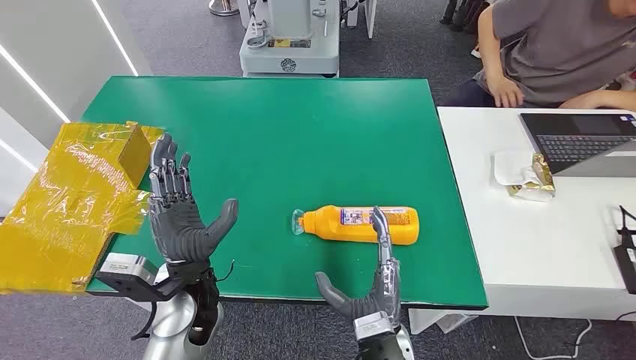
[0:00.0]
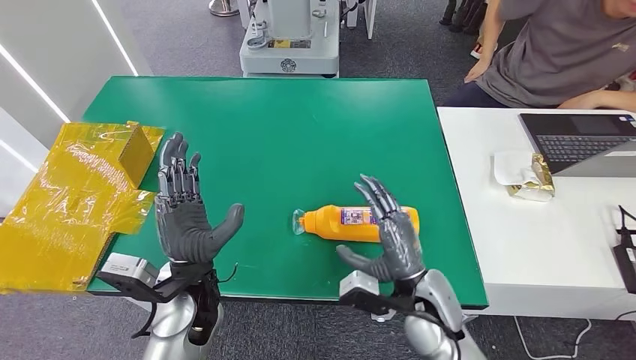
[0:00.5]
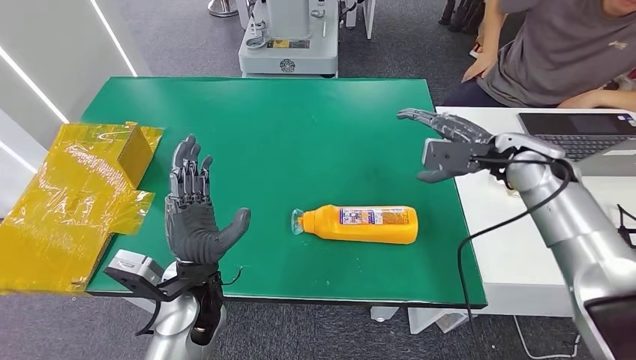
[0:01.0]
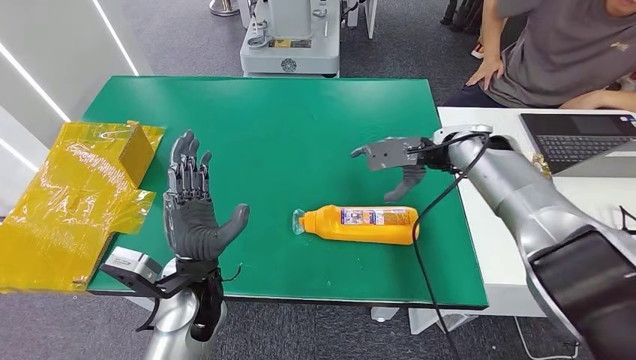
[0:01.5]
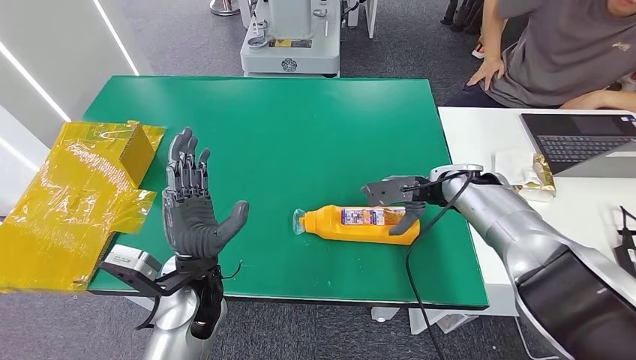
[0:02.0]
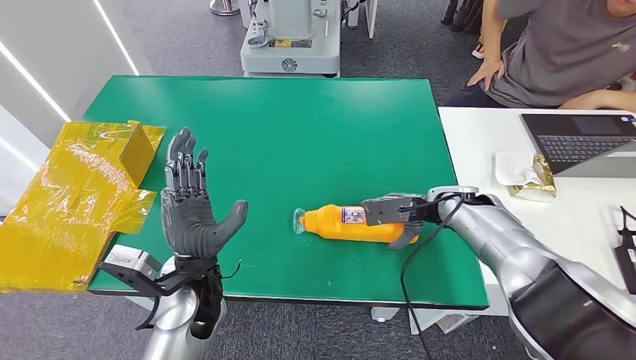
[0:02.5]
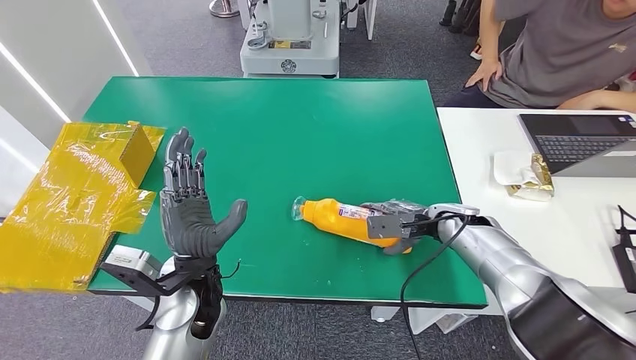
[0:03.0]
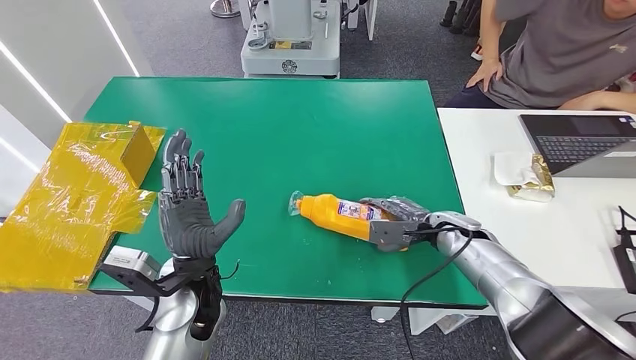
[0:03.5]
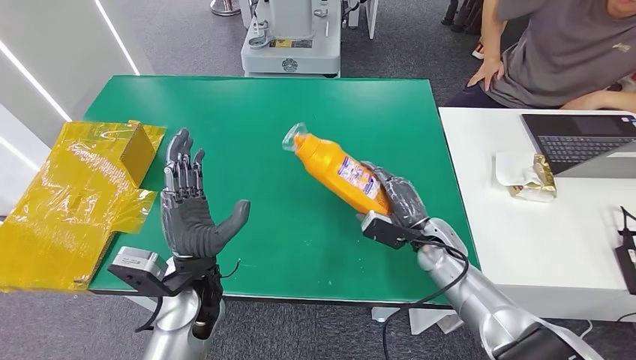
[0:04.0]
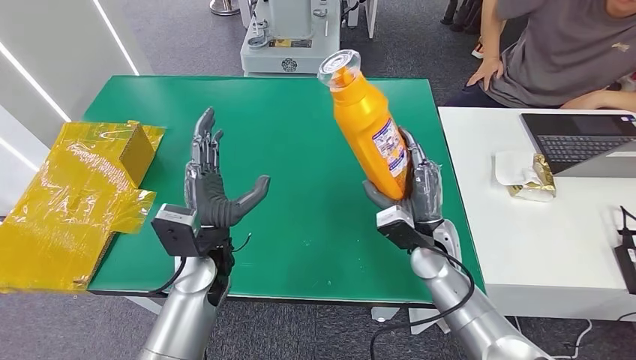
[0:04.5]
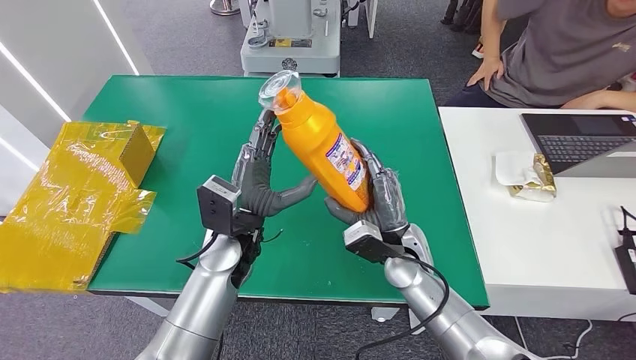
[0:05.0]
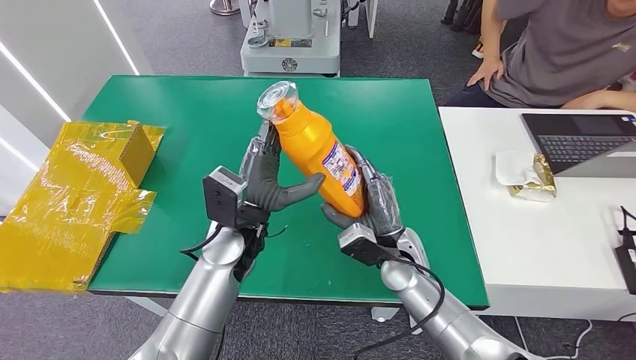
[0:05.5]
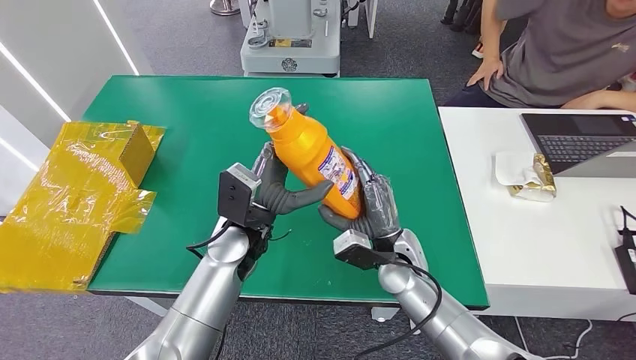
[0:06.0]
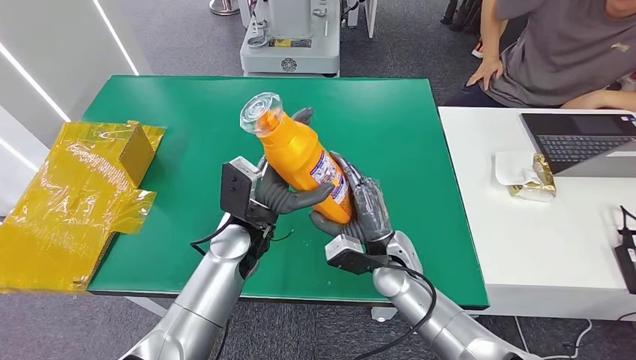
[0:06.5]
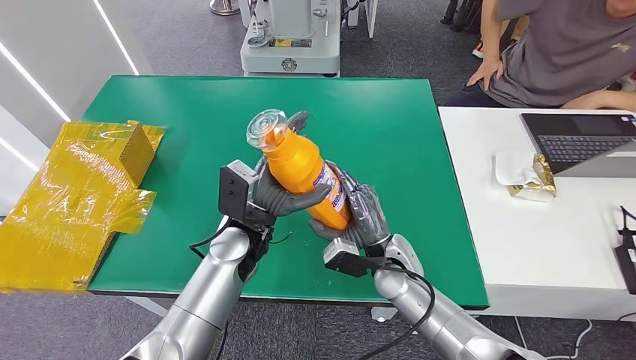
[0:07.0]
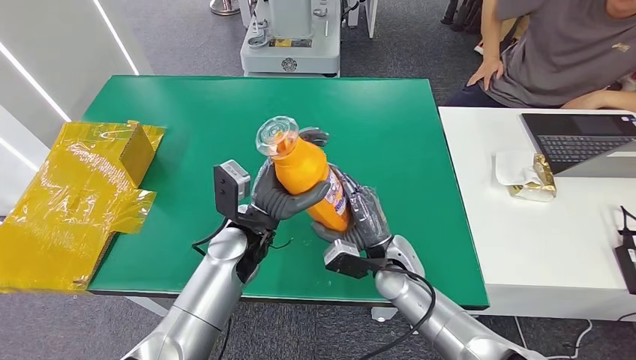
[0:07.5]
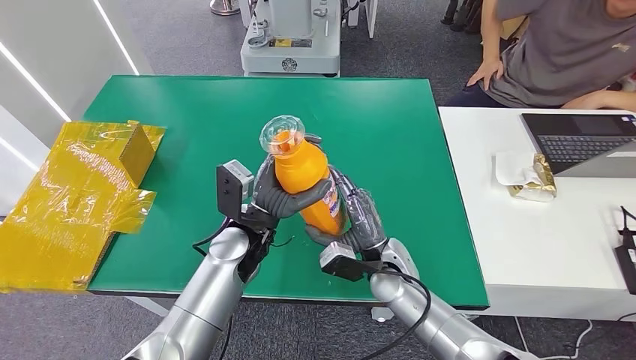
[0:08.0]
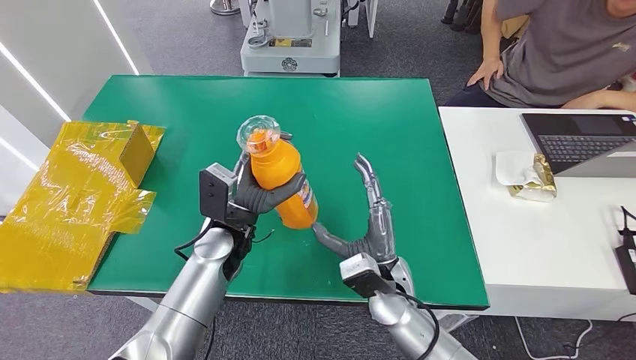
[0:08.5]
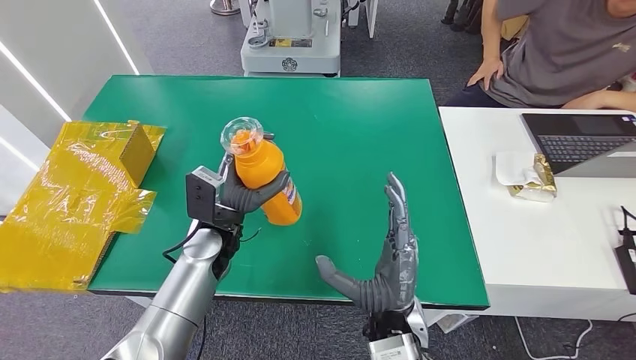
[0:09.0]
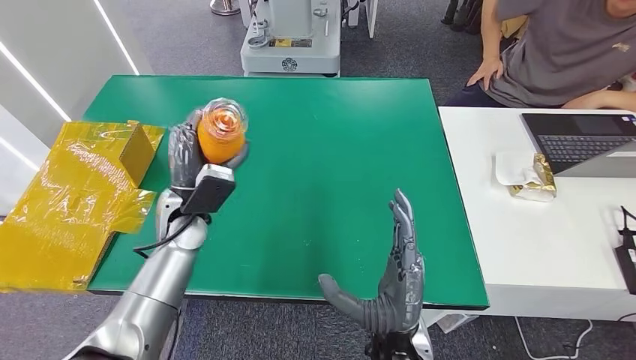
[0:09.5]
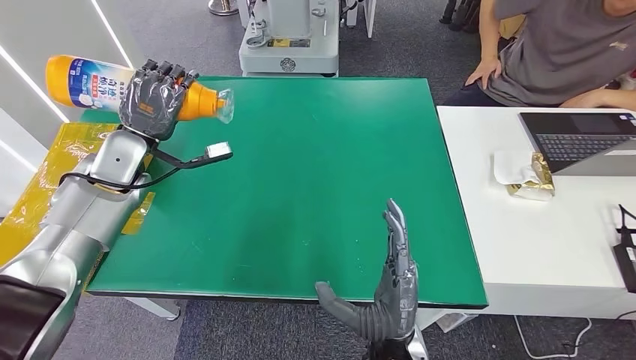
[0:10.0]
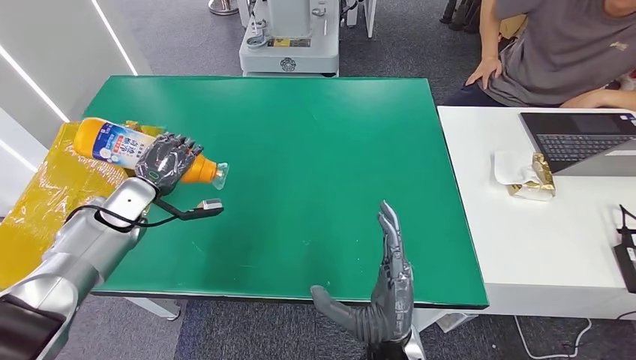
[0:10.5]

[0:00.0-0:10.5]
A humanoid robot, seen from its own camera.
Step, 0:00.0 to 0:05.0: Pick up the bottle from the table.
Step, 0:05.5 to 0:10.5: Turn the bottle to the front side.
0:02.0 to 0:04.0: The right hand moves downward and backward, about 15 cm.
0:04.0 to 0:06.5: The left hand moves forward and to the right, roughly 10 cm. The right hand is displaced to the left by approximately 10 cm.
0:06.5 to 0:08.5: The hands move only a little.
